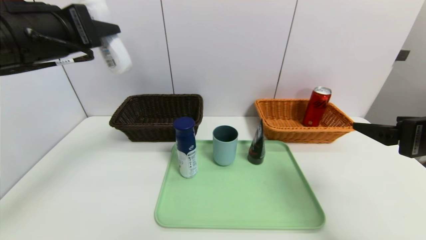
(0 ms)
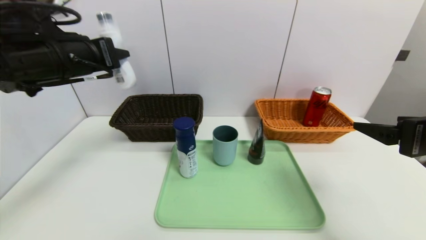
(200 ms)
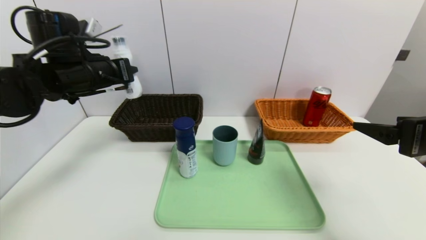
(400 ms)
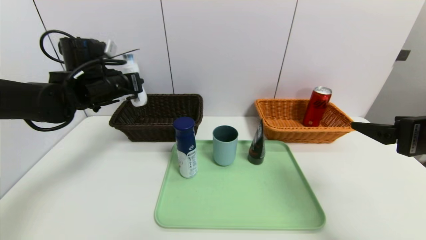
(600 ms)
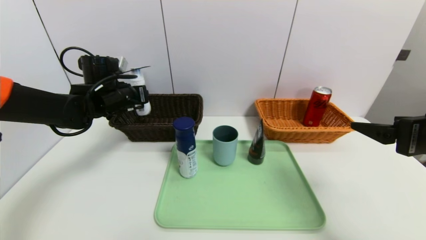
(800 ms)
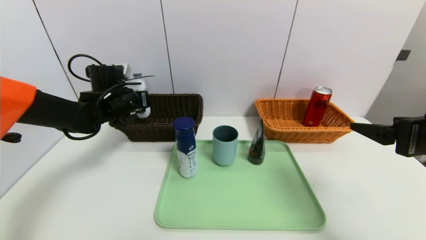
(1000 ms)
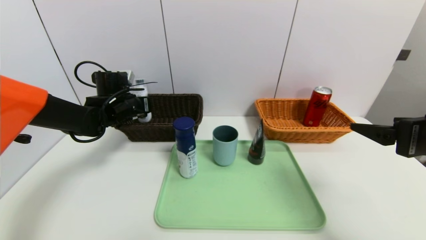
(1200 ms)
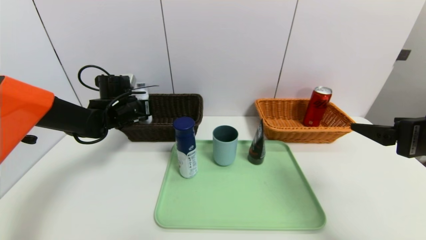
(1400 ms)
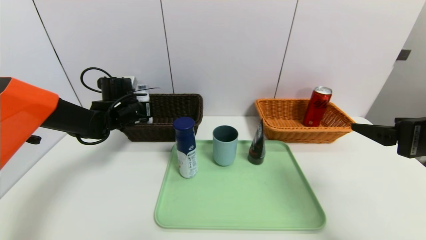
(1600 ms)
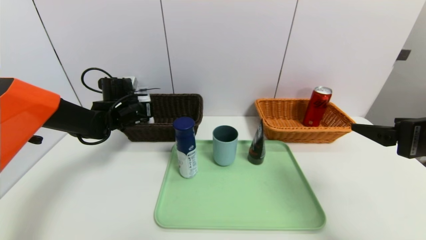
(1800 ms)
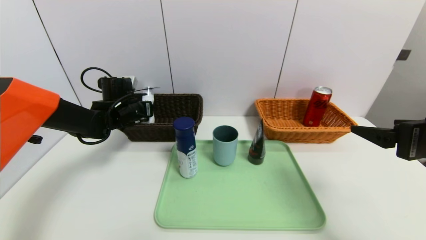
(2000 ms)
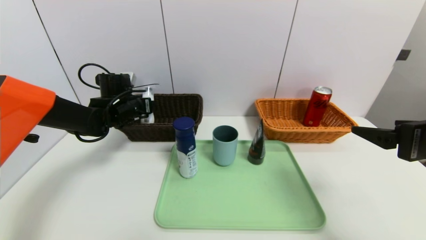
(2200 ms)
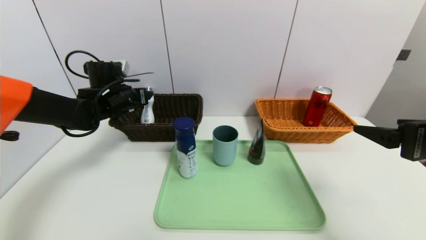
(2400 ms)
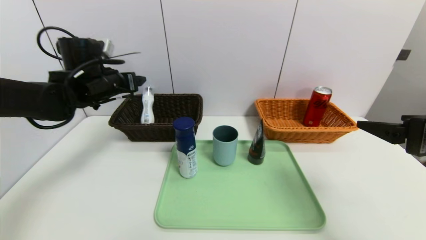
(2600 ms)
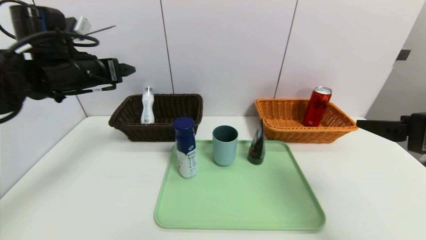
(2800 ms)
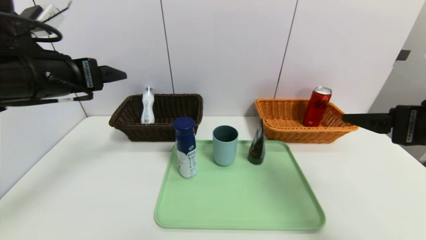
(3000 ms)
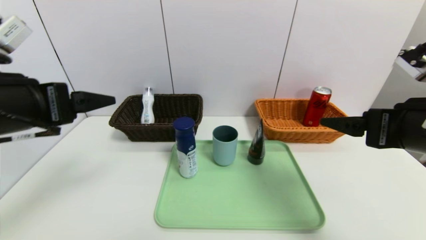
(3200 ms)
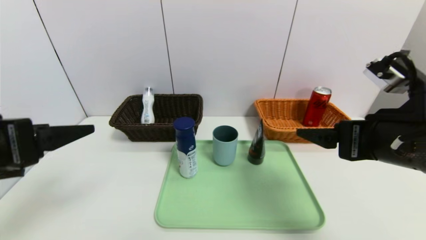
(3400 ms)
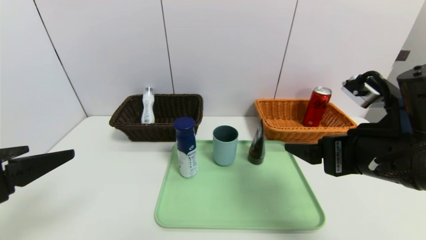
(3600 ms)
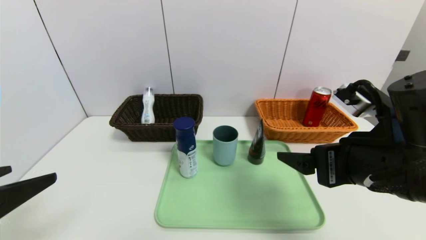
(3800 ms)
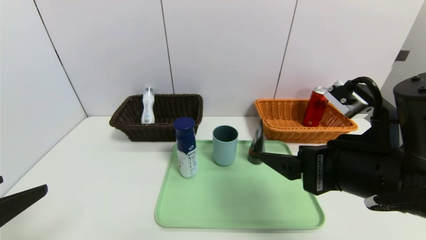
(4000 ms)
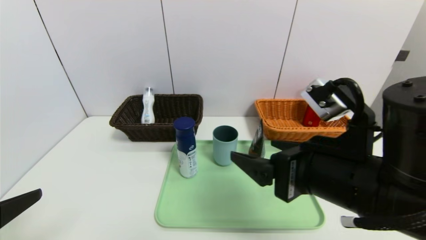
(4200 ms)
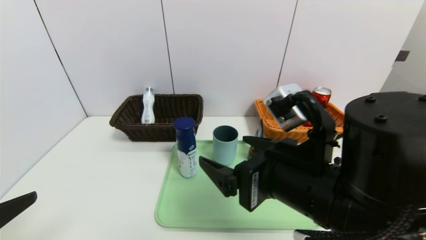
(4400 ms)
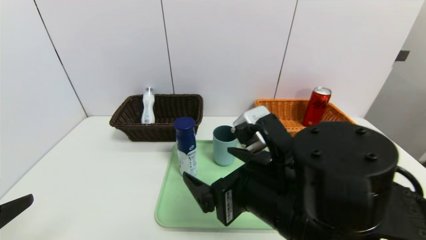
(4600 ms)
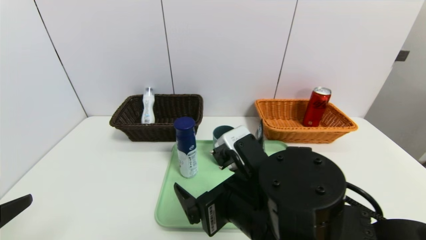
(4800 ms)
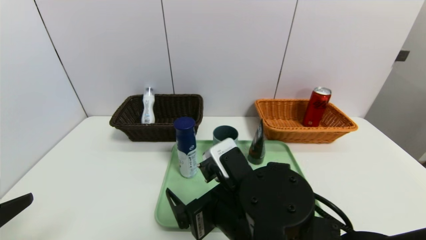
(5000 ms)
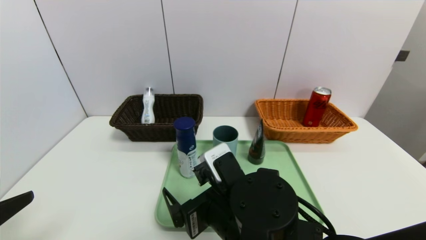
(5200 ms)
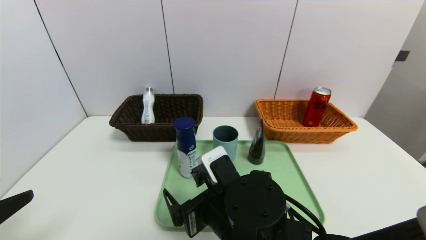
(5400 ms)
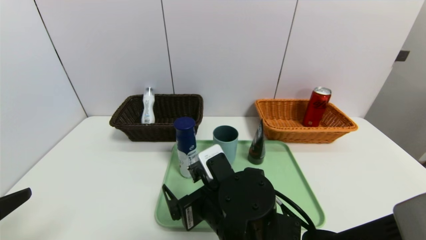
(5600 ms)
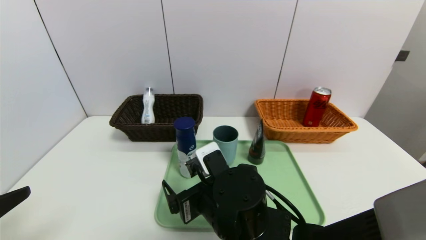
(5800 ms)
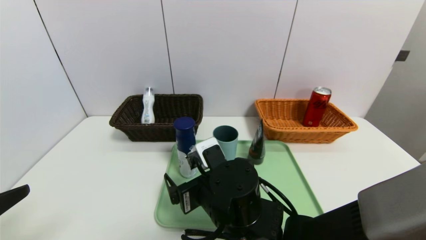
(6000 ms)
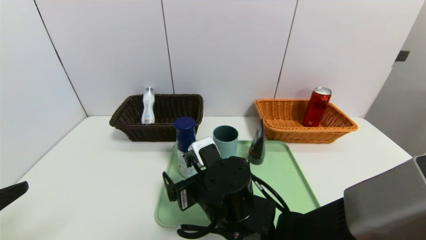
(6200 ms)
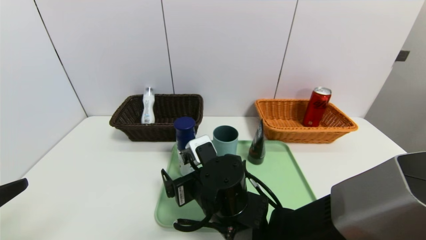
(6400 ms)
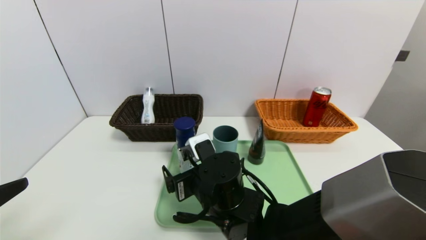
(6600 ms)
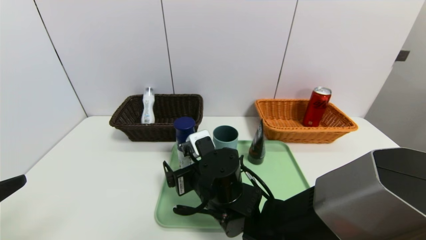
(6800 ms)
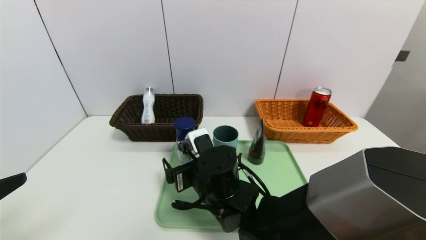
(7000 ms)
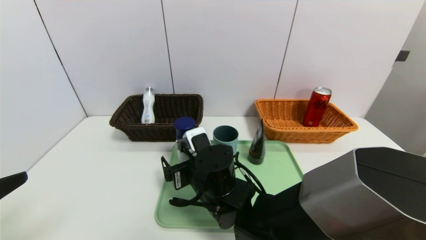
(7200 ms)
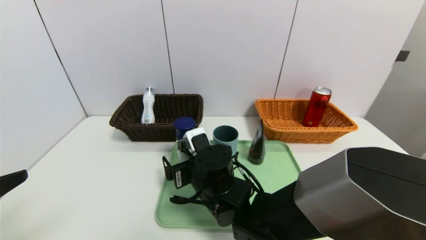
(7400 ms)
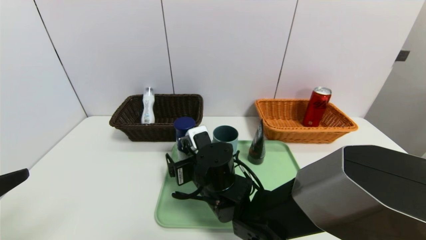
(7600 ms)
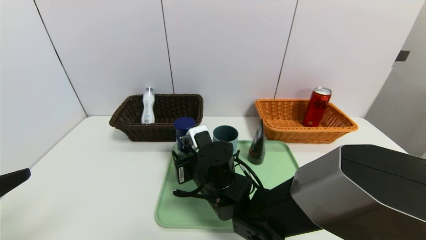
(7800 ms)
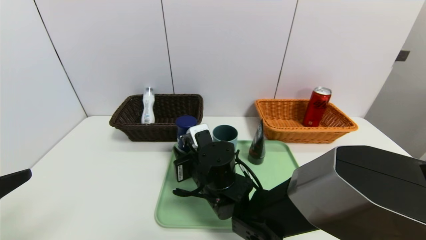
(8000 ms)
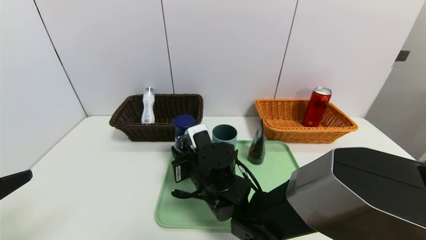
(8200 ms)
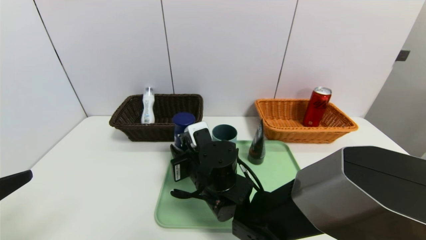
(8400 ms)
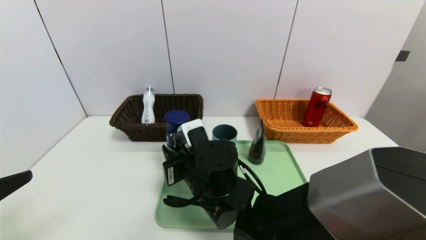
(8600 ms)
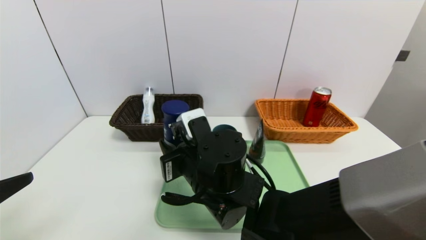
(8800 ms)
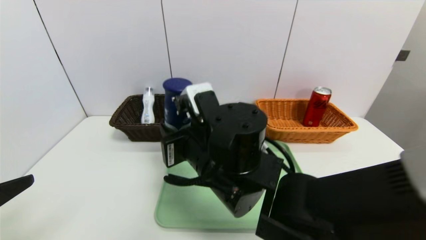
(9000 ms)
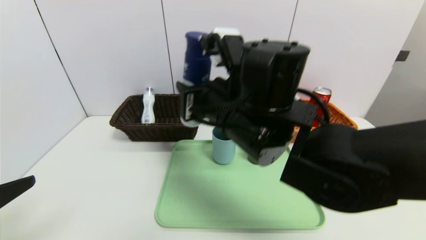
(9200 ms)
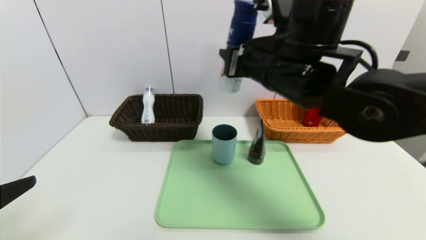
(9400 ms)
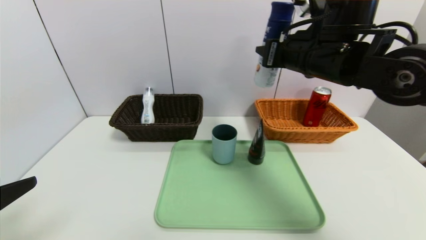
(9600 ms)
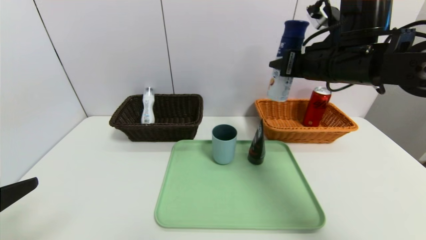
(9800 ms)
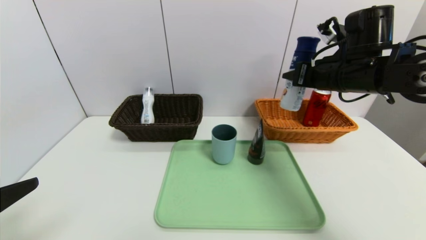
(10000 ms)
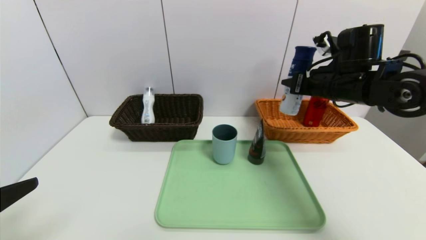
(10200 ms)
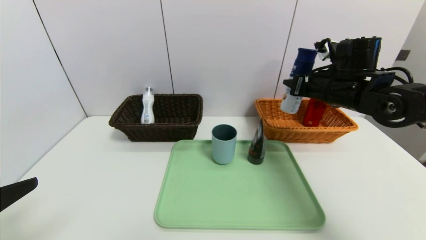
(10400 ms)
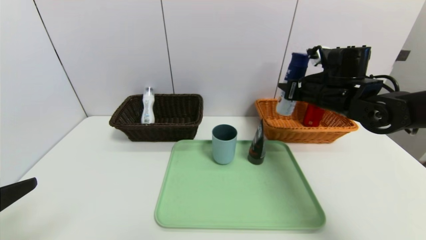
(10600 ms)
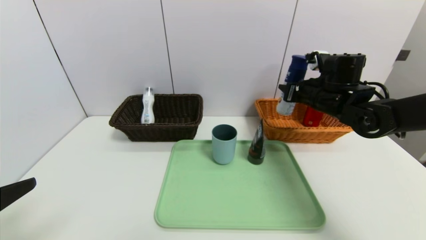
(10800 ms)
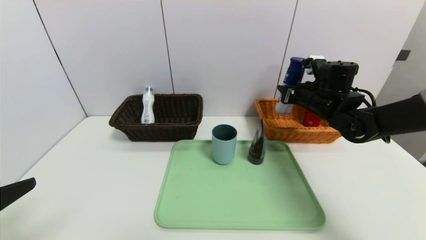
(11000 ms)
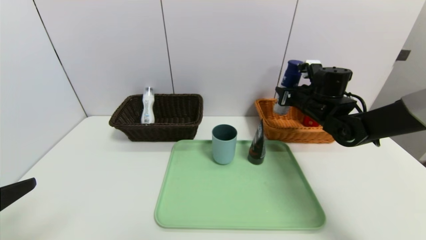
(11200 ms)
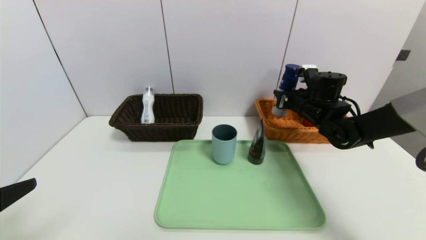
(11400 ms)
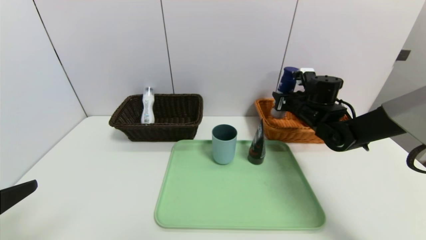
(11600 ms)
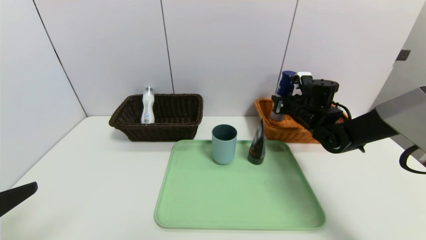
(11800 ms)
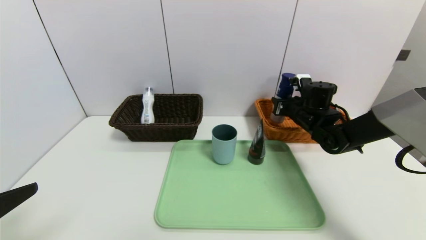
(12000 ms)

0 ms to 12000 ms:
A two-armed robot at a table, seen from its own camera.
Task of the whole recording: place the food in the right basket with the right gripper, and place the non food items in the left basket with the left gripper.
Step, 0 ms to 2400 ms: Grasp the washing liquid and put it in the left basket.
0 ms to 1600 ms: The left gripper heads forward and downward, covering approximately 30 cm.
1600 ms to 3000 ms: The left gripper moves backward and upward, some 25 cm, and opens its fingers.
3000 ms to 4400 ms: The right gripper is displaced to the left by some 20 cm. The left gripper moves backward, about 20 cm.
4400 ms to 6000 ms: The right gripper heads downward and to the left, covering some 15 cm.
6000 ms to 7600 ms: The right gripper goes some 5 cm forward.
7600 ms to 9000 ms: The right gripper travels upward by approximately 10 cm, and closes its fingers.
9000 ms to 10400 ms: The right gripper is displaced to the right and forward by some 30 cm.
10400 ms to 12000 ms: The right gripper moves downward and forward, some 10 cm.

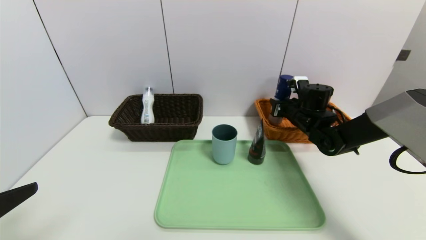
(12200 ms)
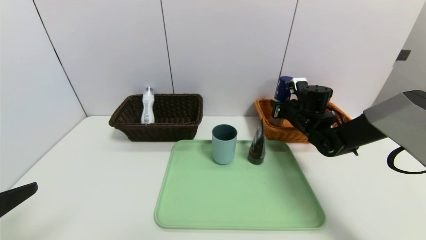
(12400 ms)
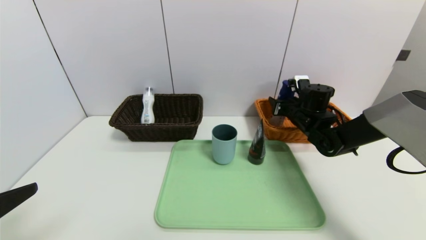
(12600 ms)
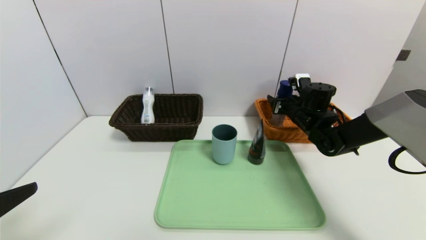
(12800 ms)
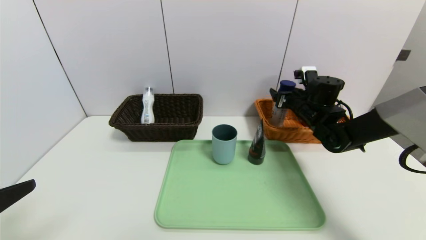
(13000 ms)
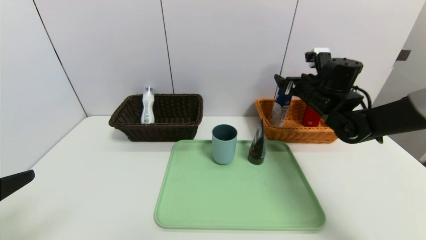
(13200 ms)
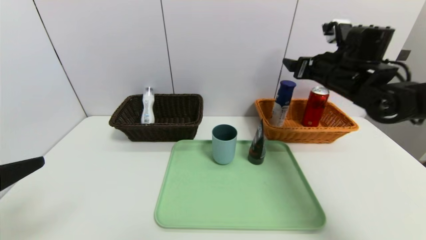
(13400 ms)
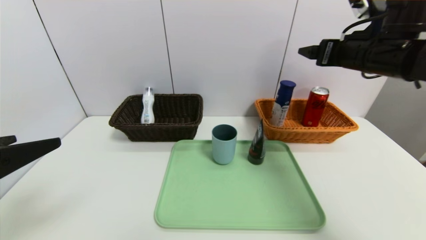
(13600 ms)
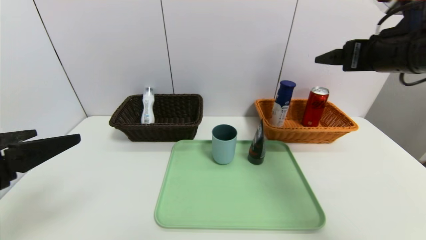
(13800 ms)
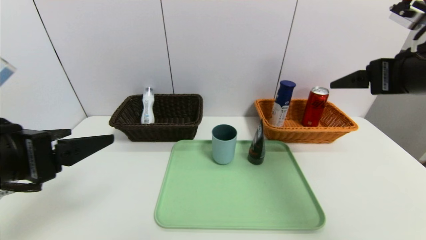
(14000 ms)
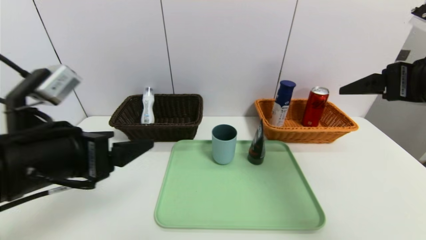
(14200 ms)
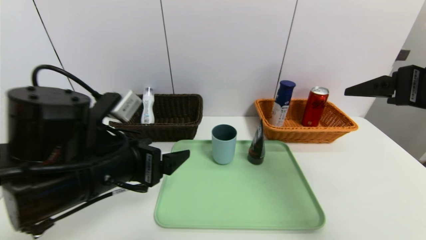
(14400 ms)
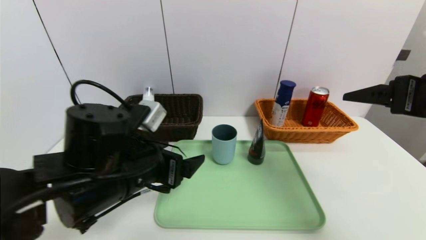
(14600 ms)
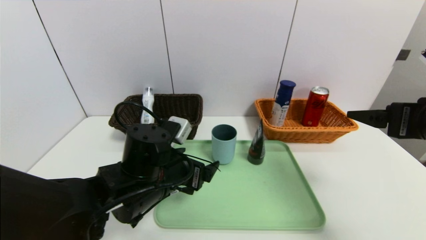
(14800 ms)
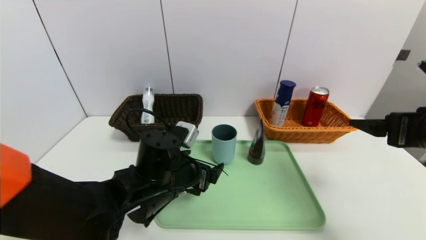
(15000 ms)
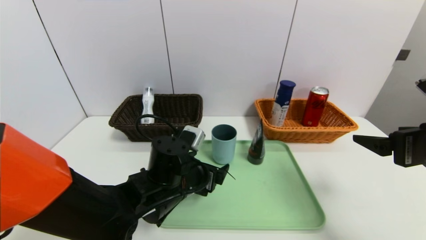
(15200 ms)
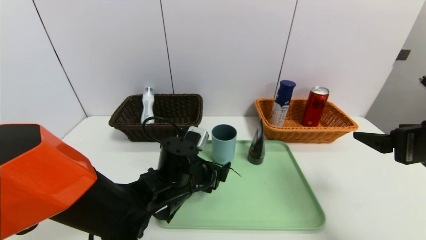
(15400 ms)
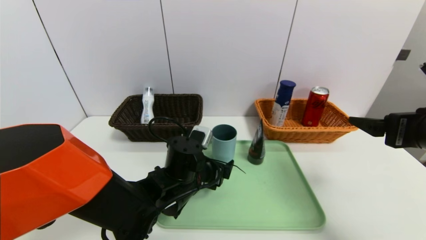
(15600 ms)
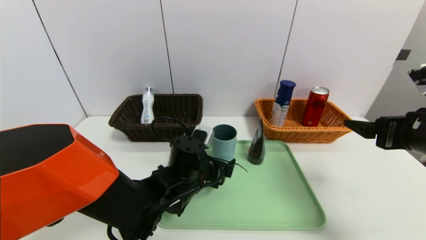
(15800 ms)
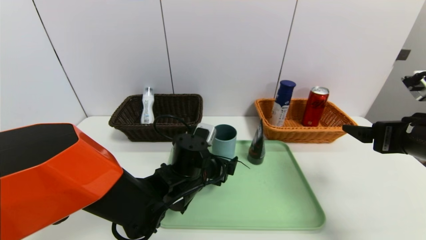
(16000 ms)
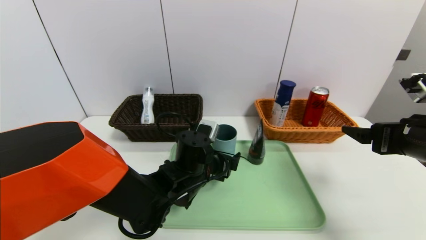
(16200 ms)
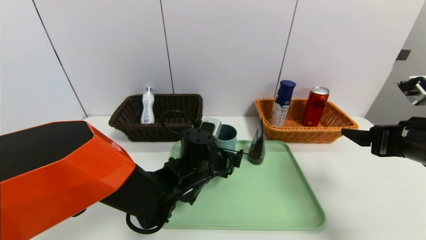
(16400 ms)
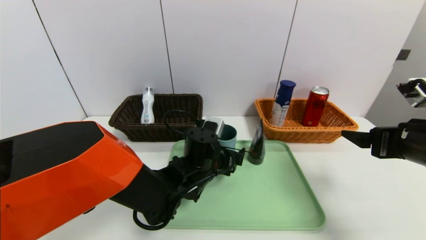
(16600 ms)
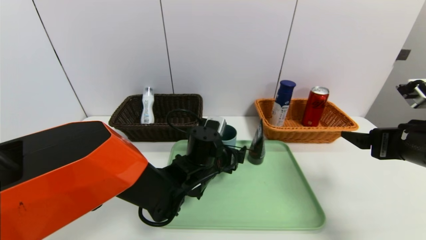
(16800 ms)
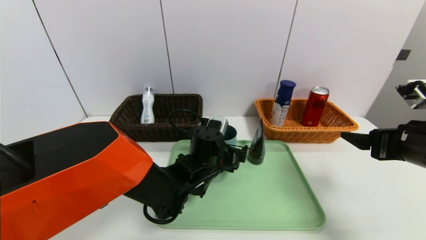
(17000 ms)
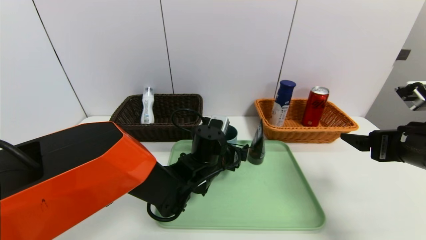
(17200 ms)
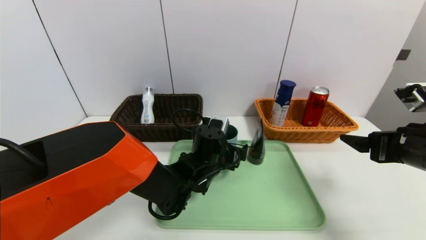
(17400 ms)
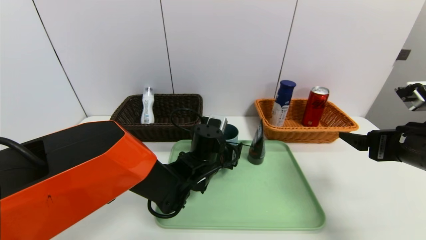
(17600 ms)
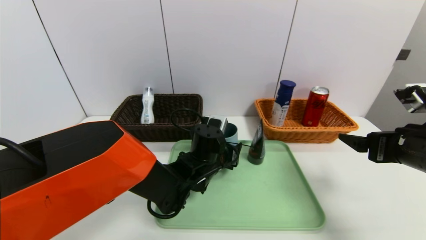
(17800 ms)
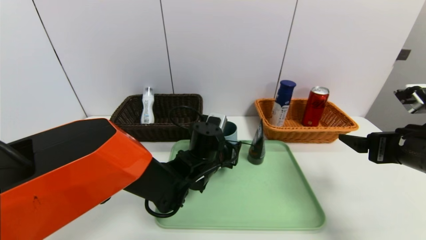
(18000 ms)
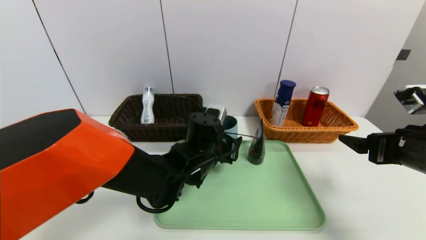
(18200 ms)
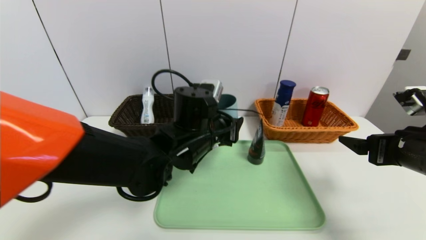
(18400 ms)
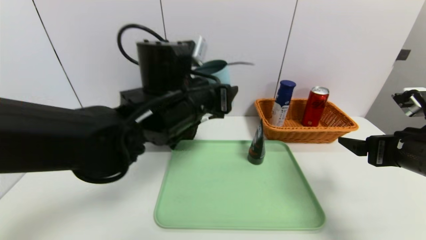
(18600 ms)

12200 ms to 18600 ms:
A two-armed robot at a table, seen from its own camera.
Task of the whole recording: place the food in the right basket with the right gripper, and place the non food items in the left basket with the left gripper.
12200 ms to 13800 ms: The left gripper heads forward, covering some 5 cm. The right gripper heads upward and backward, covering about 25 cm, and opens up.
13800 ms to 15400 ms: The left gripper moves to the right, downward and forward, some 30 cm. Meanwhile the right gripper moves backward and downward, roughly 15 cm.
15400 ms to 17000 ms: The left gripper moves about 5 cm.
17000 ms to 18600 ms: The left gripper is displaced upward by approximately 15 cm, and closes its fingers.
